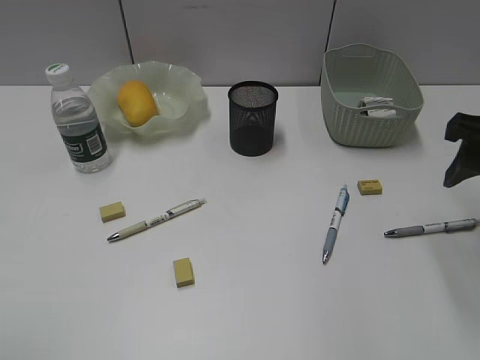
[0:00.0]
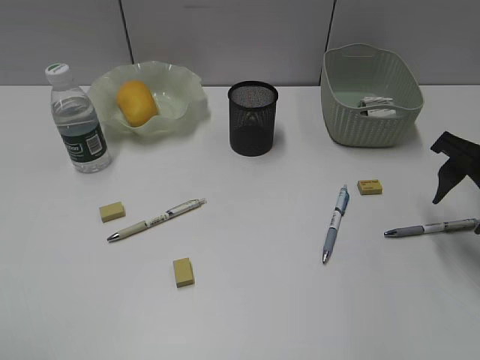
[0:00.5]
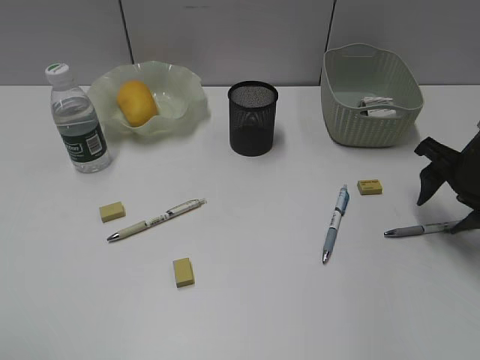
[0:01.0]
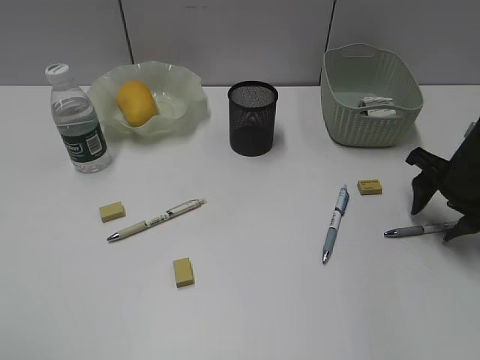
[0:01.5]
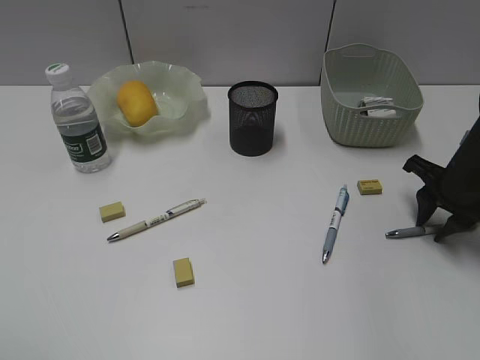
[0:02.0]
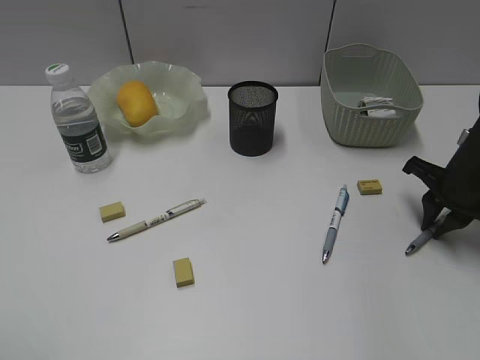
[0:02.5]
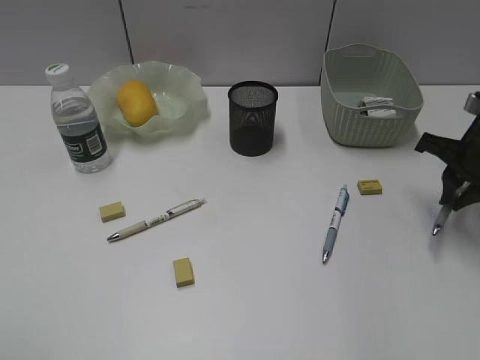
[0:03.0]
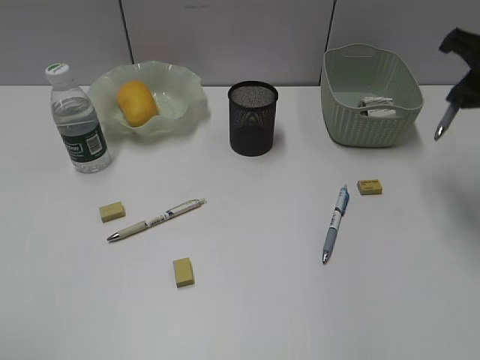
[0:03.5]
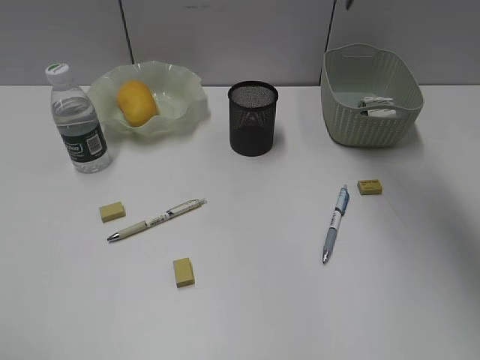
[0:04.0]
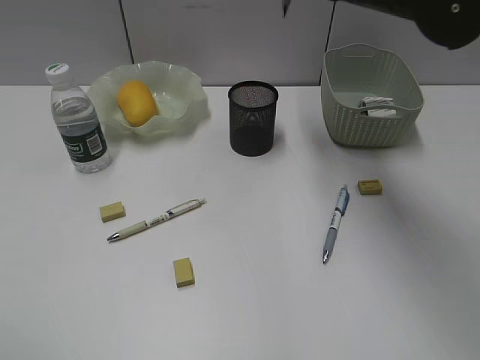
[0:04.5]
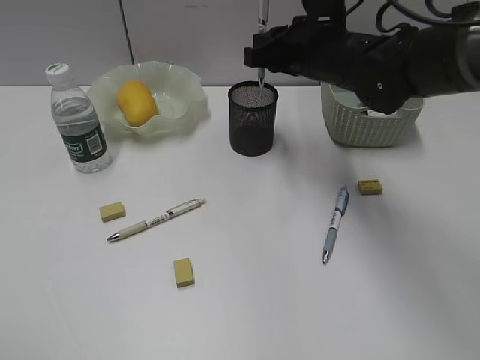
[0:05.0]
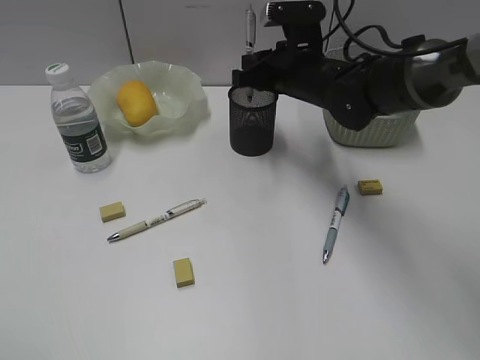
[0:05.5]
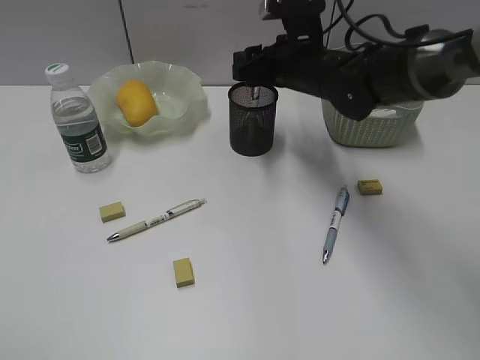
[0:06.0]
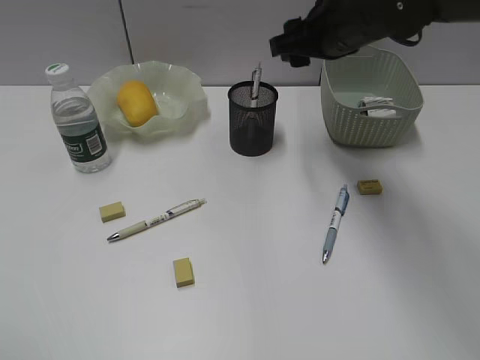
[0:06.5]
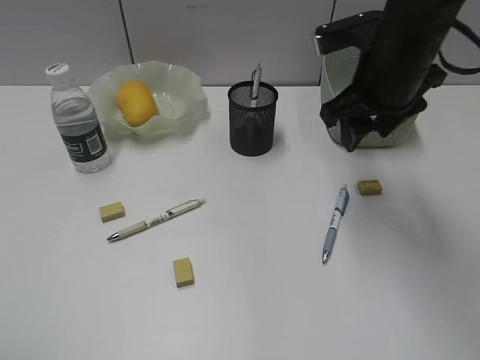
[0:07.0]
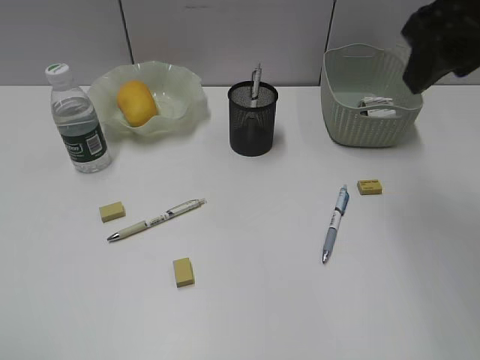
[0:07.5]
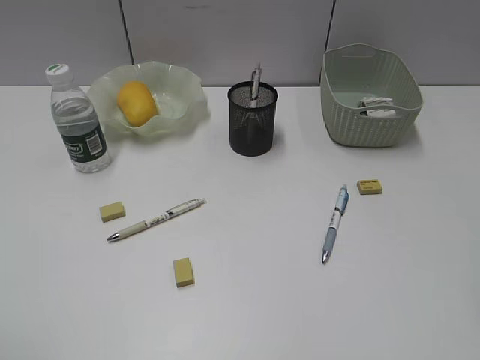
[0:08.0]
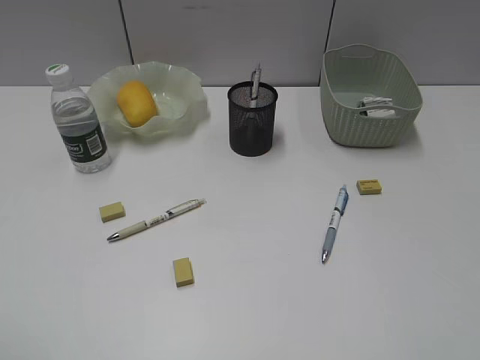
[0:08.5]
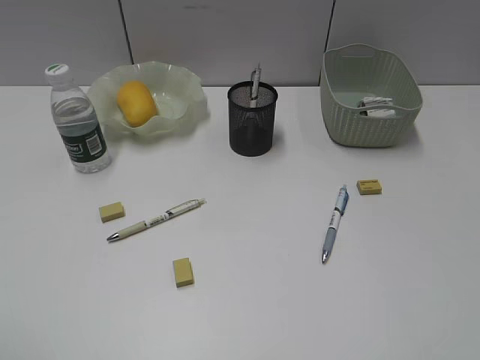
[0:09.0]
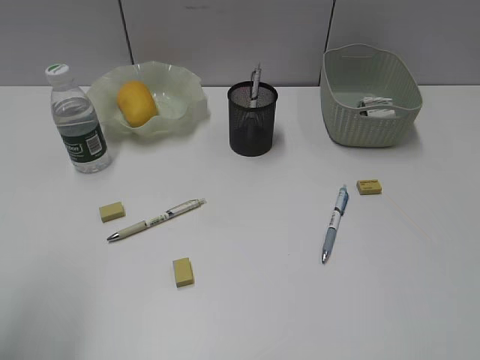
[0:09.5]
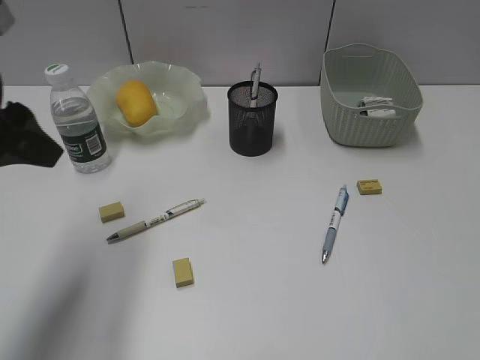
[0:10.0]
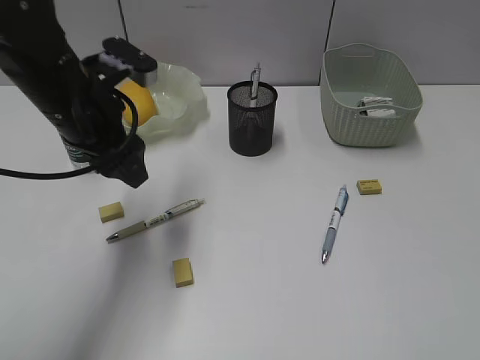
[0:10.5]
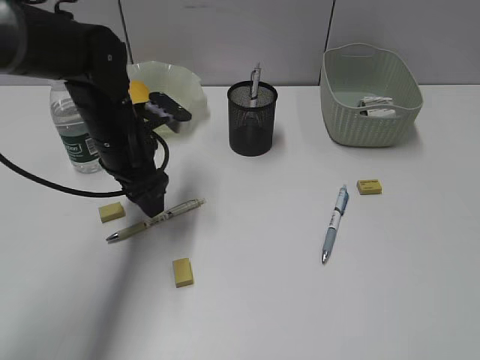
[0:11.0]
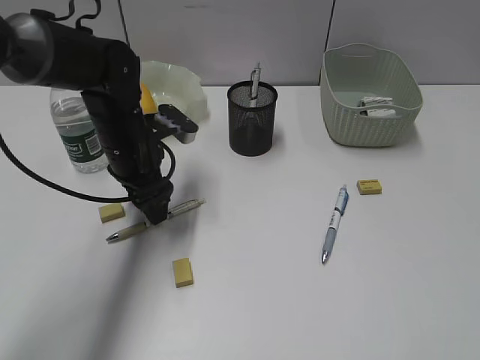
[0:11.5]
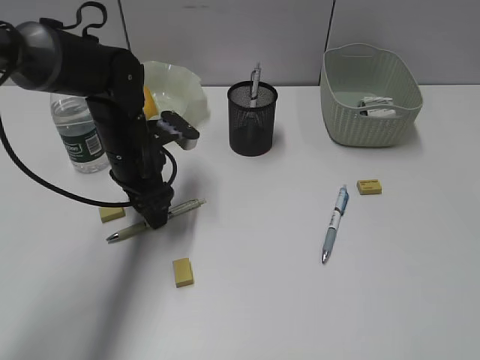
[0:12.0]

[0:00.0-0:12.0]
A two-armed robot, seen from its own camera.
Step, 0:00.0 to 0:02.5: Grasp the gray pen with right gripper.
Step, 0:03.0 to 0:05.5: Place the gray pen in pen holder with right gripper.
0:00.0 to 0:02.0: The right gripper travels downward and forward by some 15 cm, and closes.
0:02.0 to 0:04.0: The right gripper moves upward and to the left, some 25 cm.
0:04.0 to 0:06.0: The right gripper shifts some 20 cm downward, forward and to the left, and opens up.
0:06.0 to 0:08.0: The right gripper travels backward, upward and to the right by about 40 cm.
0:08.0 to 0:10.0: The left gripper travels forward by some 25 cm.
0:10.0 to 0:12.0: The left gripper goes roughly 25 cm downward, forward and to the right.

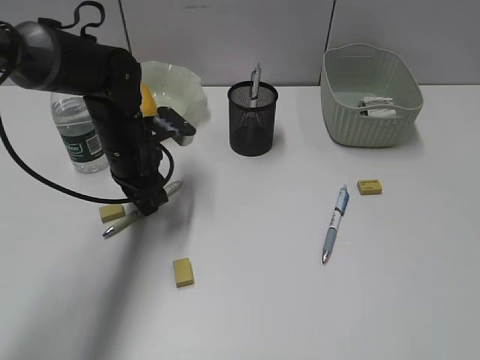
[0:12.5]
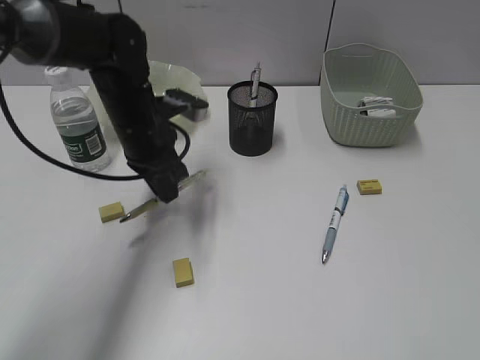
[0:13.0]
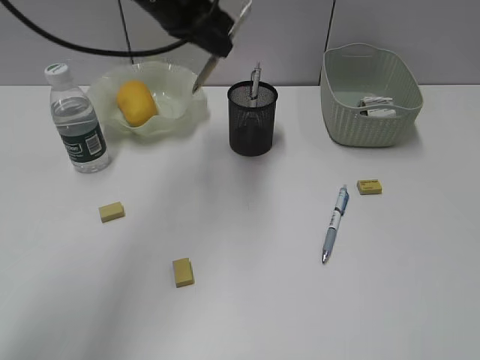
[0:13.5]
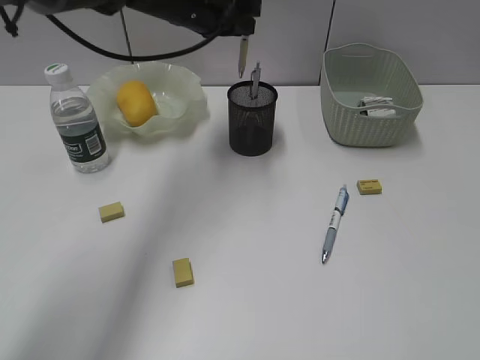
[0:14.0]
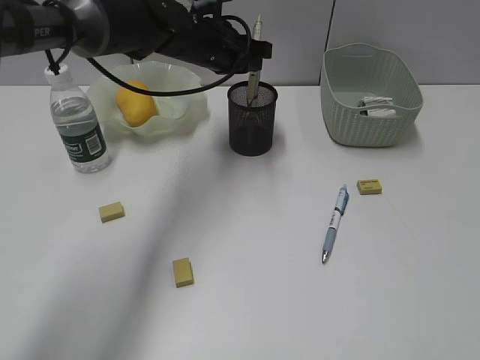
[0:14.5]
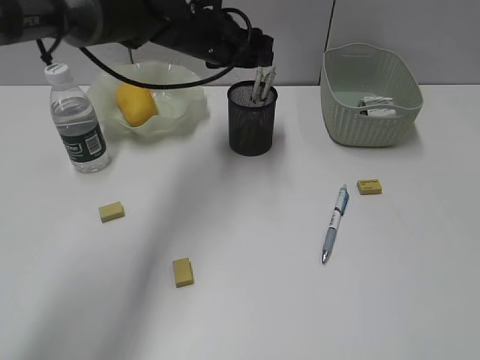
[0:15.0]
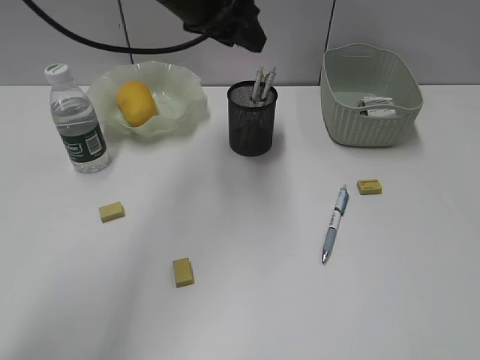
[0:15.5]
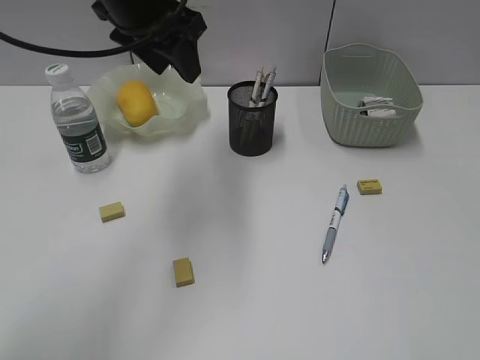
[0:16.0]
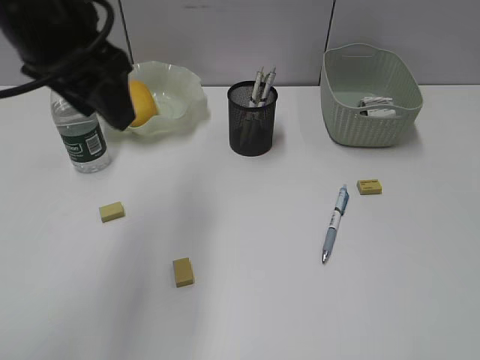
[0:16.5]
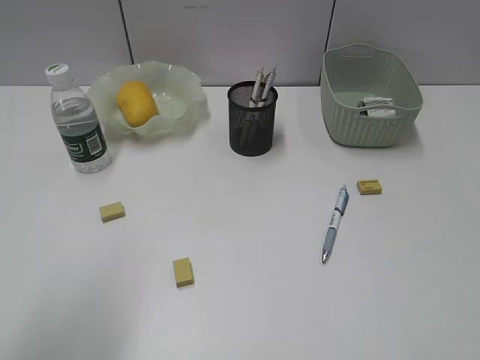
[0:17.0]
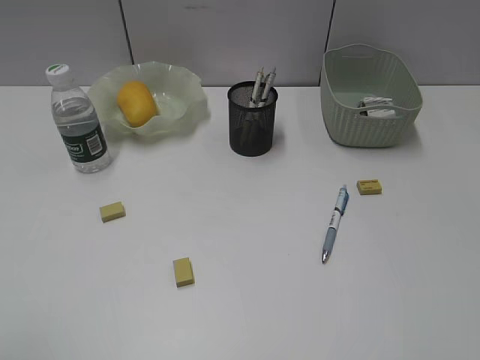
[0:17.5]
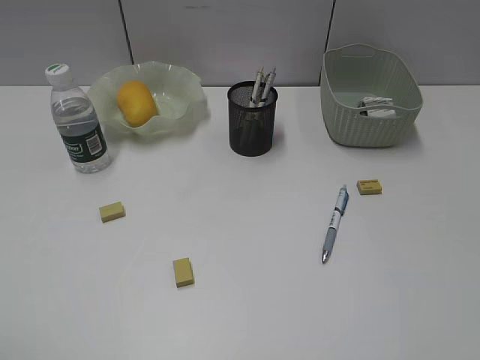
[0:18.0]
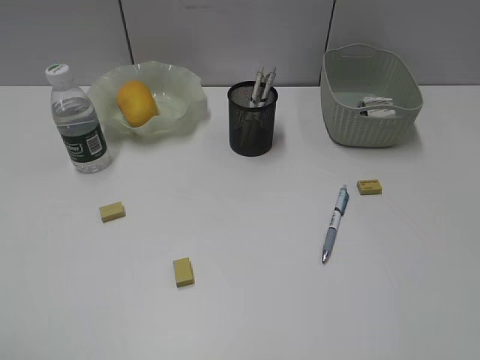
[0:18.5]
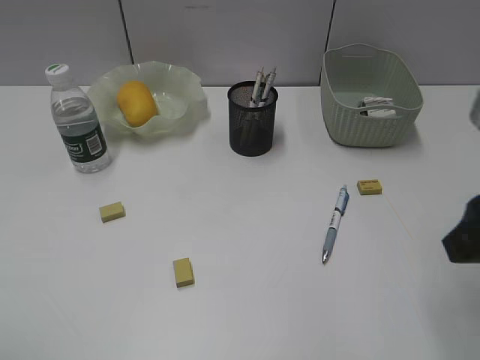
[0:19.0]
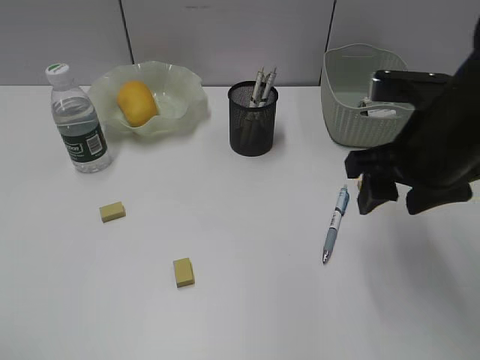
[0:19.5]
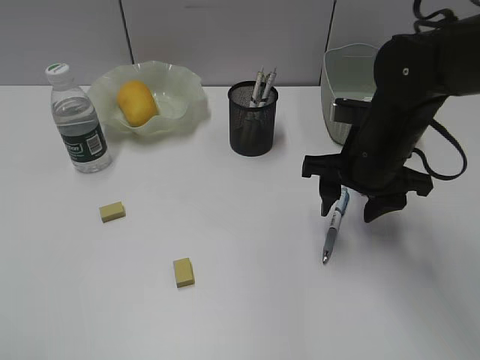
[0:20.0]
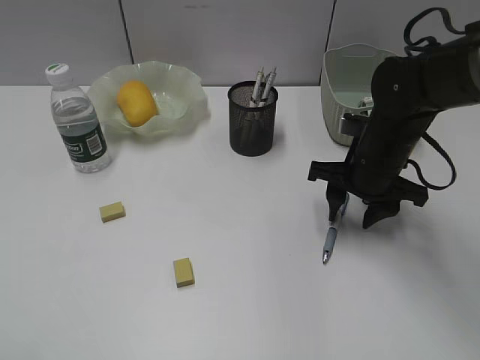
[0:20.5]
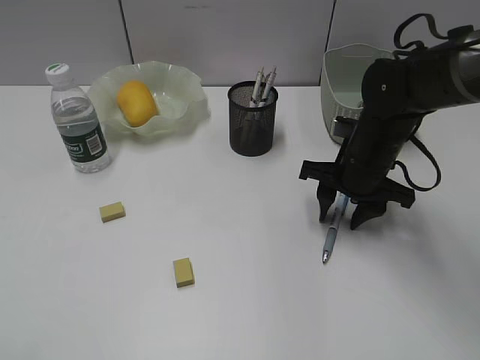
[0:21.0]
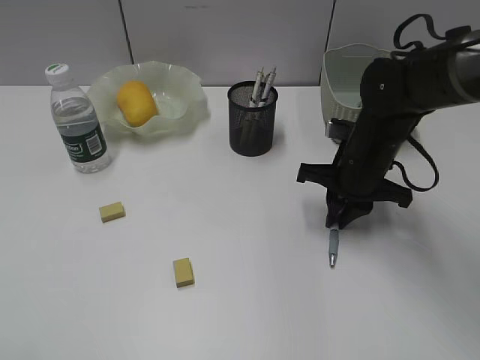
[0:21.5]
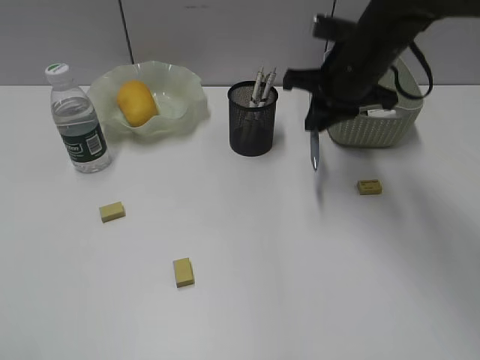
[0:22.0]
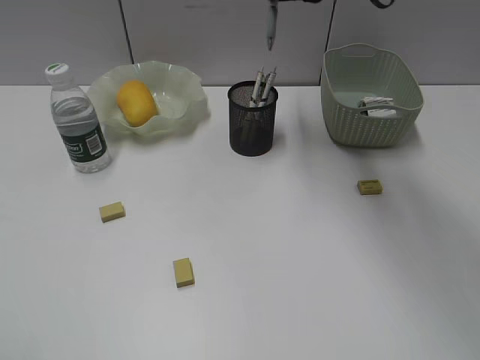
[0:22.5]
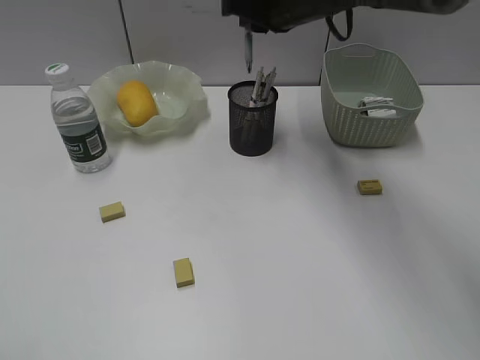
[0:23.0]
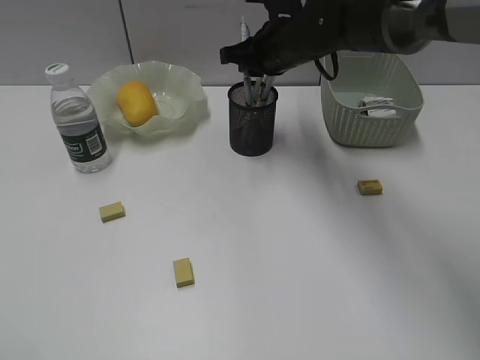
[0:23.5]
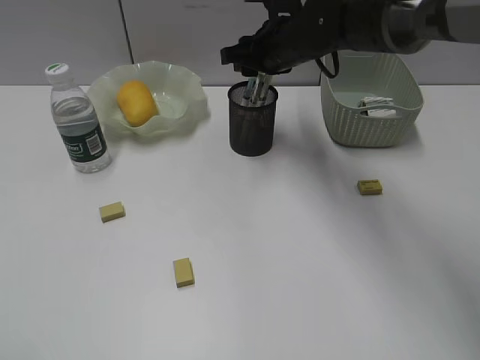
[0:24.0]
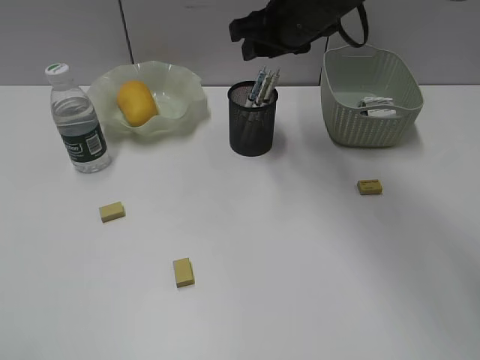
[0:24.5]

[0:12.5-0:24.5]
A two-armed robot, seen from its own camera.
Step, 0:13.0 to 0:14.5: Place the yellow pen in pen holder with left gripper.
Step, 0:15.0 to 0:21.0: Grasp the blue pen with right gripper.
Step, 0:21.5 to 0:24.0: Place the blue pen in pen holder with right gripper.
0:12.5 to 0:14.5: The left gripper heads forward, to the right and upward, covering roughly 15 cm.
0:14.5 to 0:16.5: The left gripper goes approximately 25 cm backward, upward and to the left, and opens its fingers.
0:16.5 to 0:18.5: The left gripper moves backward and to the left, about 30 cm.
0:18.5 to 0:20.5: The right gripper travels forward, downward and to the left by about 35 cm.
0:20.5 to 0:22.5: The right gripper travels upward and forward by some 20 cm, and closes.
0:22.5 to 0:24.5: The right gripper is displaced downward by about 5 cm, and opens up.

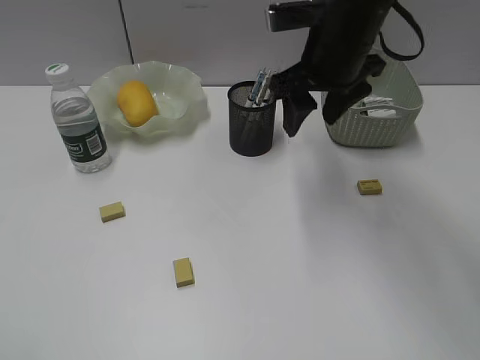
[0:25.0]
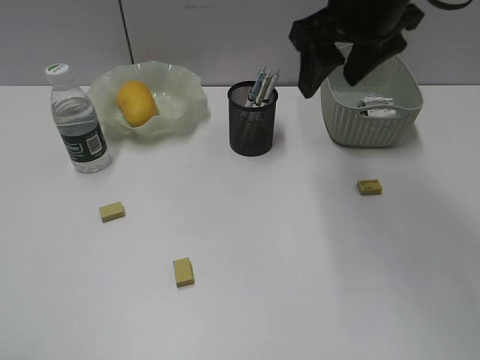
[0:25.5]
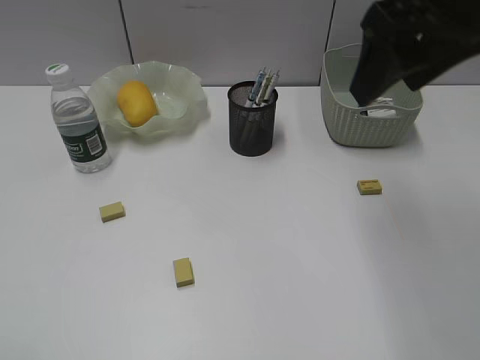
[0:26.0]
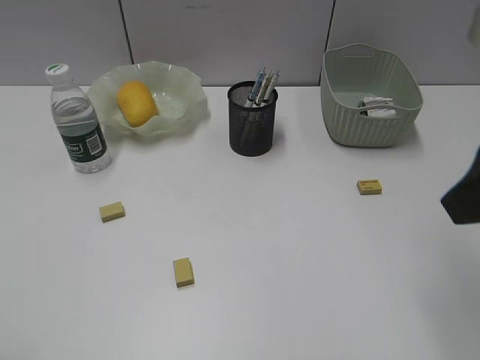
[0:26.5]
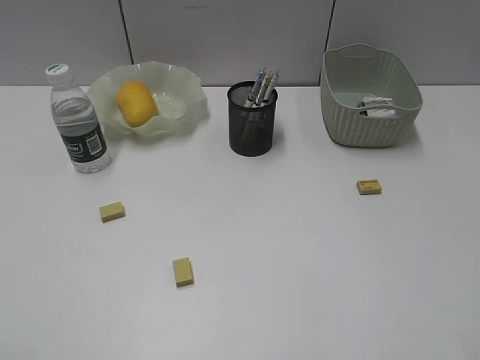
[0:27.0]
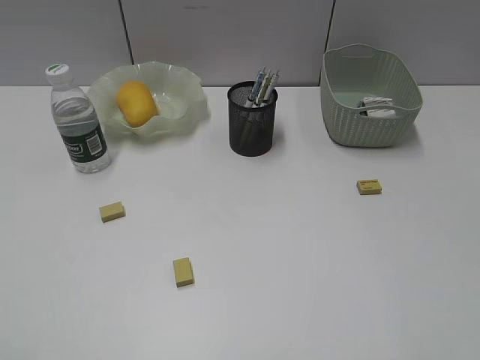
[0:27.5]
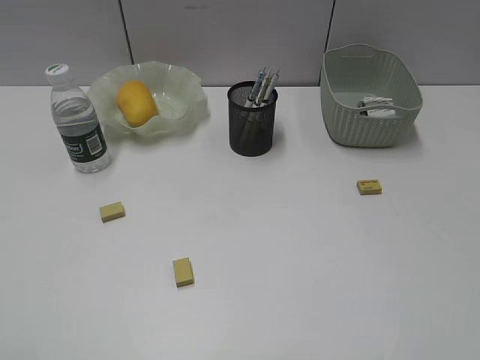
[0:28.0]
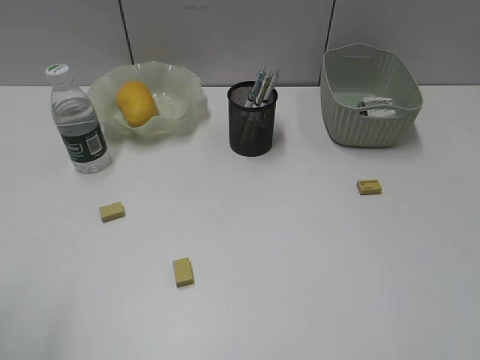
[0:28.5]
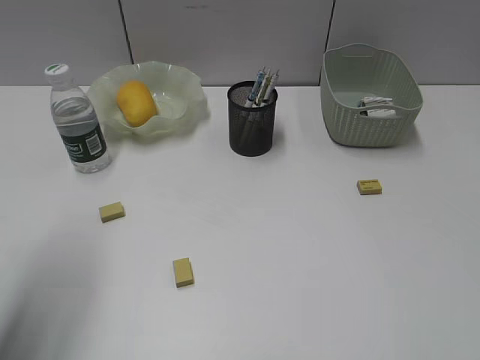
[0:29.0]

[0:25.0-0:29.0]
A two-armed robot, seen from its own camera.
0:25.0 to 0:27.0: The right gripper heads backward and to the right, covering roughly 35 cm.
0:27.0 to 0:29.0: The left gripper moves forward, approximately 20 cm.
